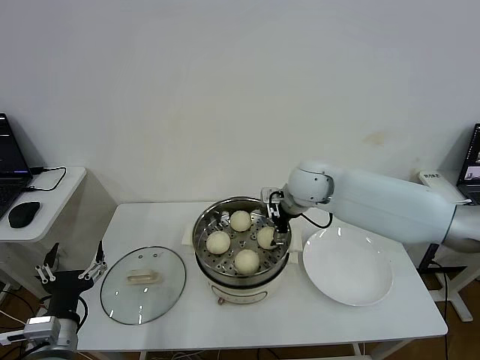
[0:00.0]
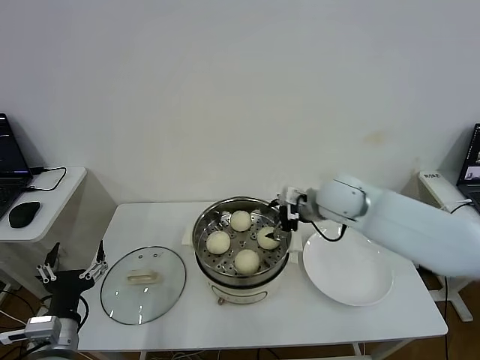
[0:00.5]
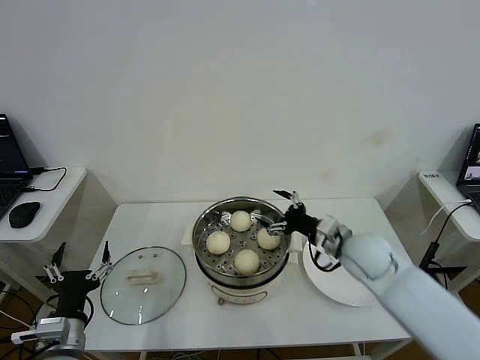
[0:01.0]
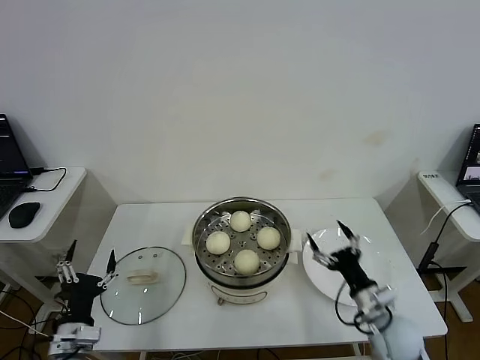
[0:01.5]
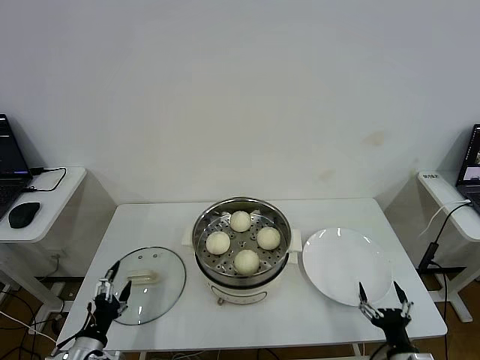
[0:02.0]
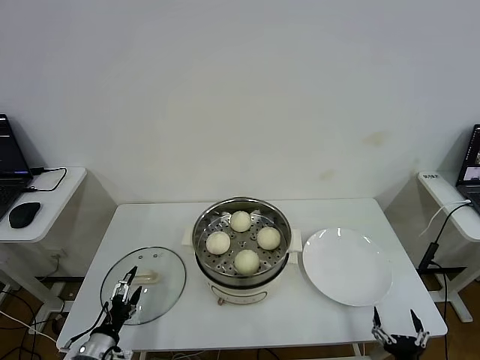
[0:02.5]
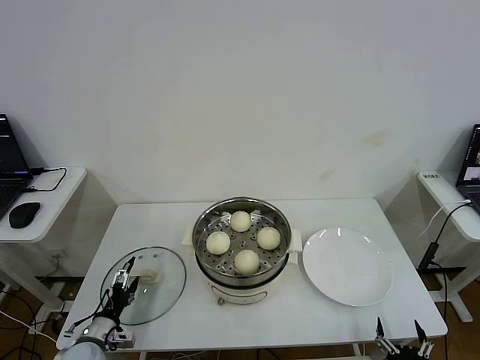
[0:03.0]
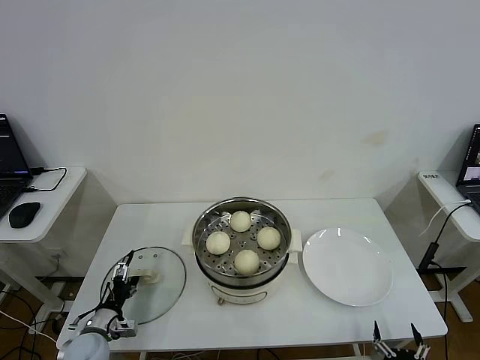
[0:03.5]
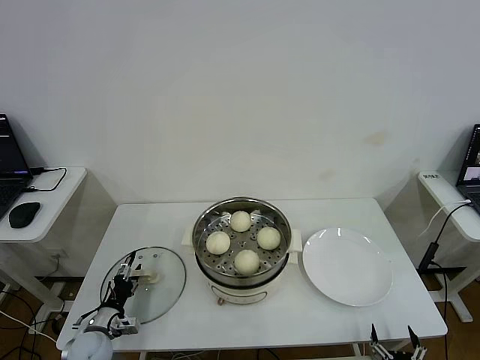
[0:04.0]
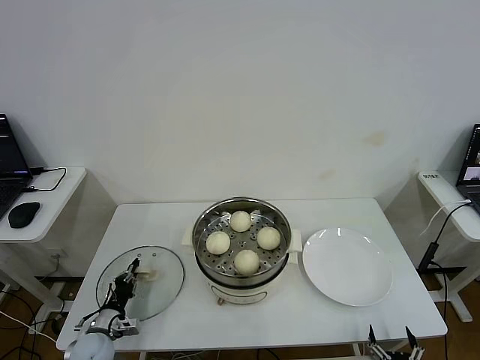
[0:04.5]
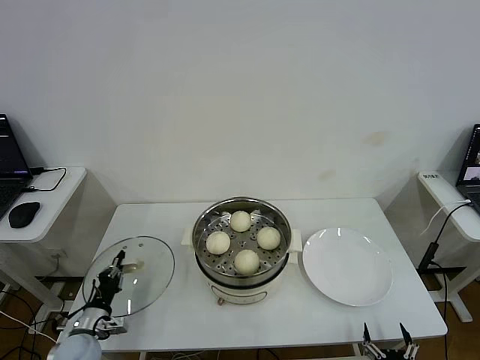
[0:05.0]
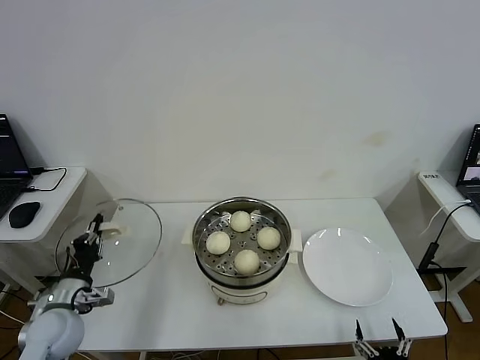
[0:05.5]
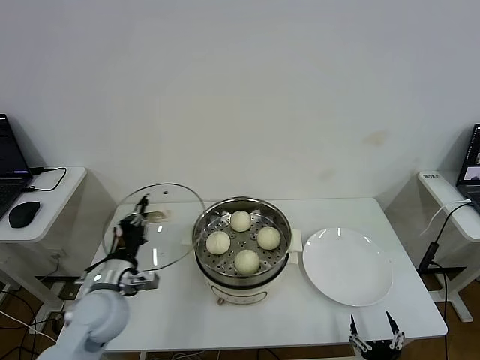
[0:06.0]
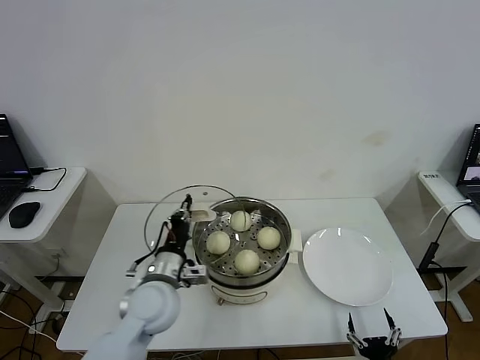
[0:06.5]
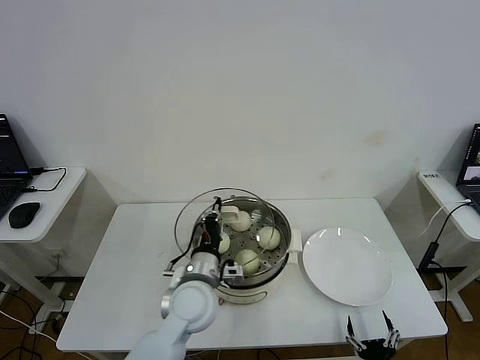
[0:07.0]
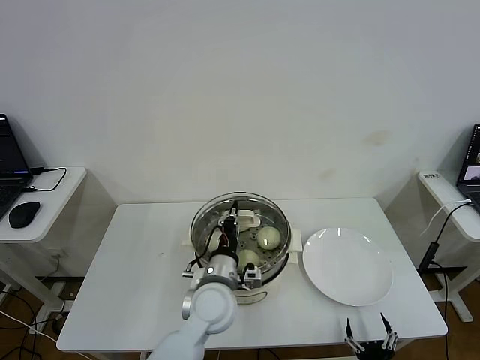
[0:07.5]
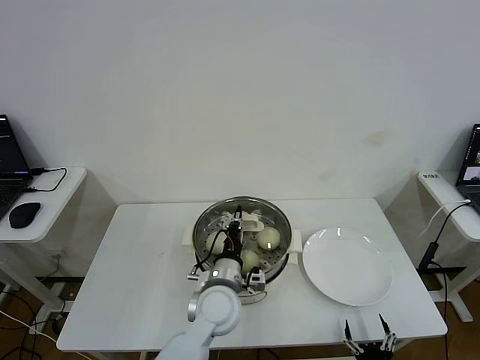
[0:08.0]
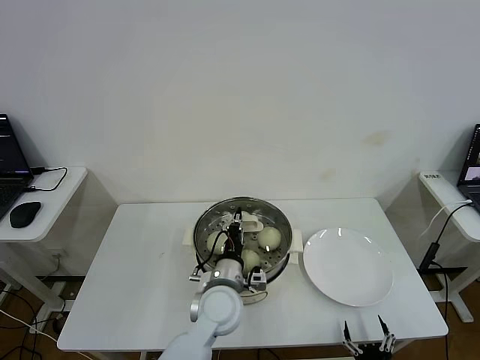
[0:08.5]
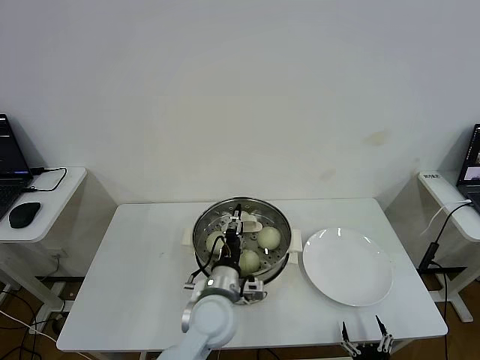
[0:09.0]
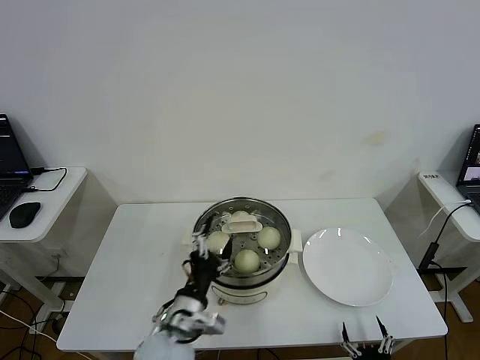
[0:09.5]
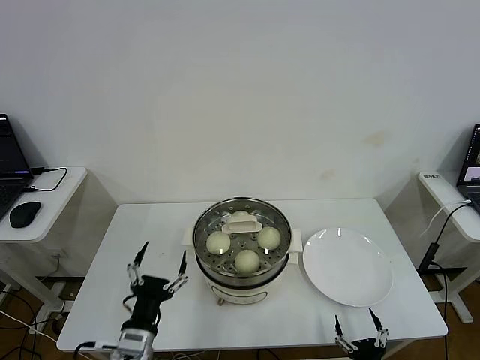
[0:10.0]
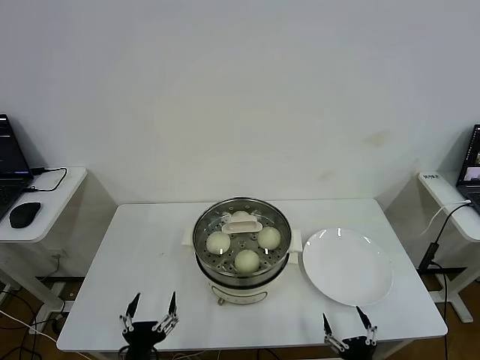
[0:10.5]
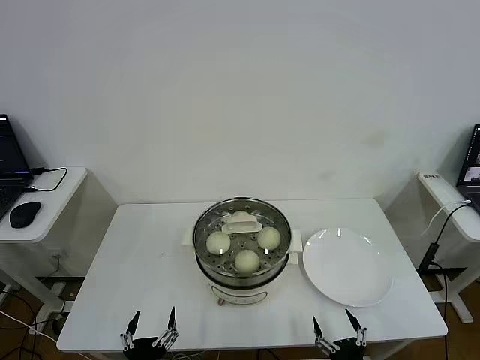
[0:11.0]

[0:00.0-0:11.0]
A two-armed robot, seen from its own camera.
Step, 0:00.5 to 0:04.5: Grasp the pot lid with left gripper.
Step, 0:05.0 to 0:08.5: Place the pot lid on the steamer with left gripper.
0:00.0 to 0:02.0: The left gripper travels downward by roughly 10 cm, while the right gripper is displaced backward, downward and to the right by about 50 cm.
0:02.0 to 0:03.5: The left gripper heads forward and downward, covering some 10 cm. Meanwhile the right gripper heads backward, covering roughly 5 cm.
0:03.5 to 0:05.5: The left gripper is displaced upward by approximately 15 cm, and closes its fingers.
0:05.5 to 0:07.5: The left gripper moves to the right, some 30 cm.
0:07.5 to 0:09.0: The left gripper opens up.
0:09.0 to 0:11.0: The right gripper travels upward by roughly 5 cm; the left gripper is displaced backward and to the left by roughly 25 cm, and opens its fingers.

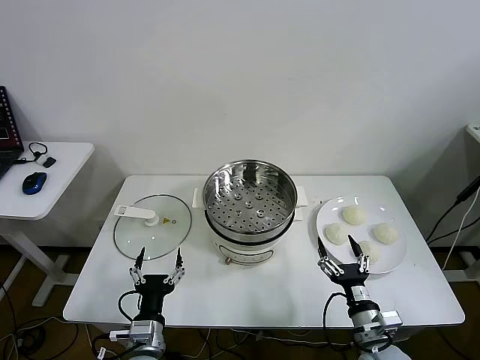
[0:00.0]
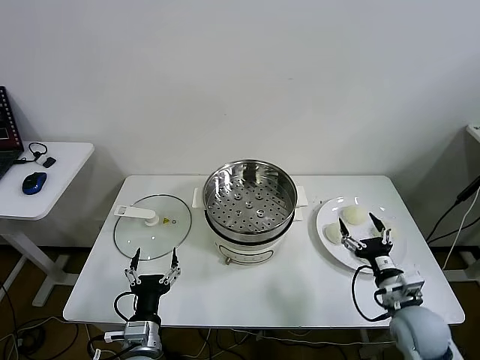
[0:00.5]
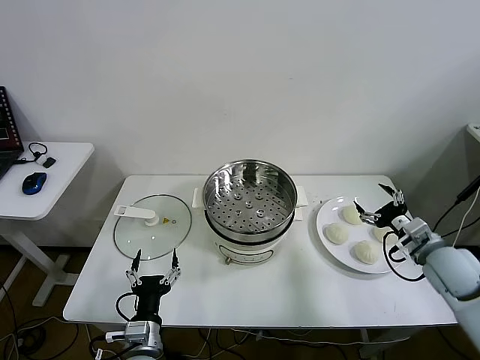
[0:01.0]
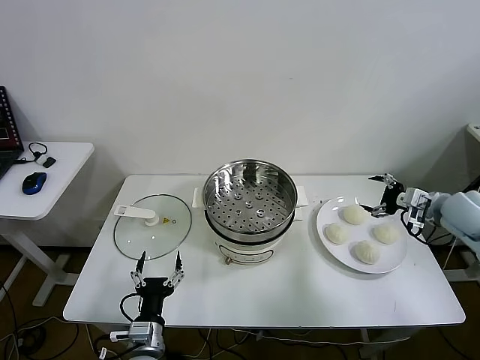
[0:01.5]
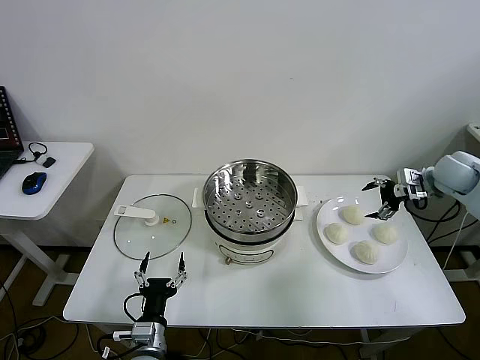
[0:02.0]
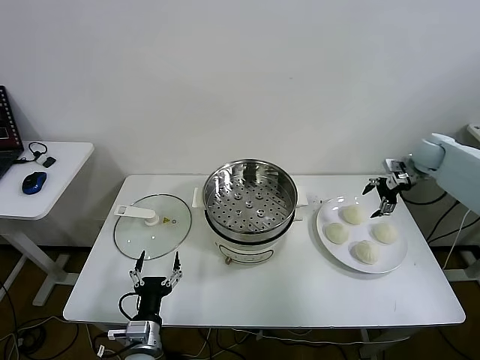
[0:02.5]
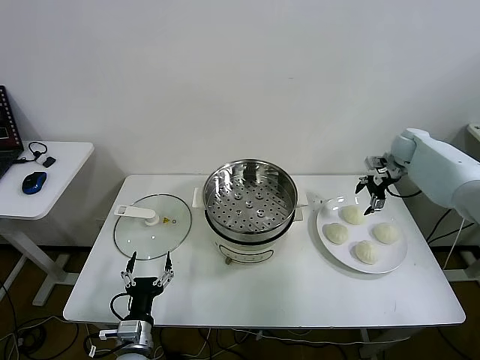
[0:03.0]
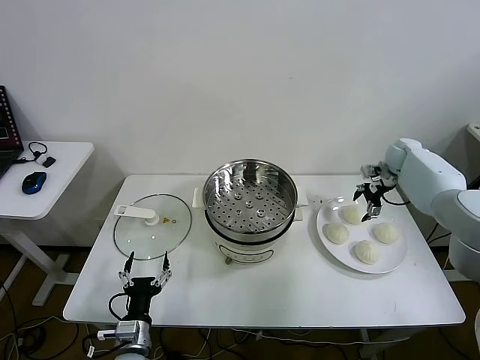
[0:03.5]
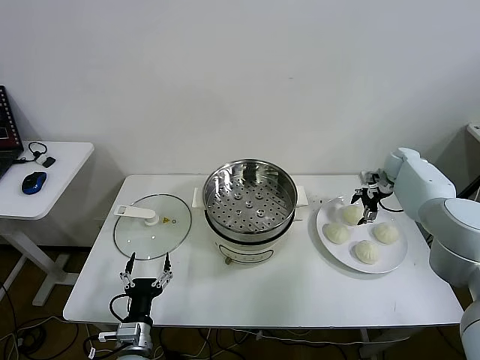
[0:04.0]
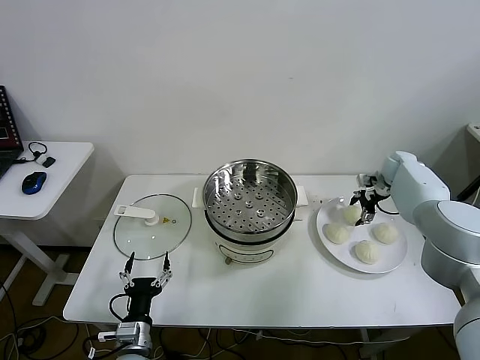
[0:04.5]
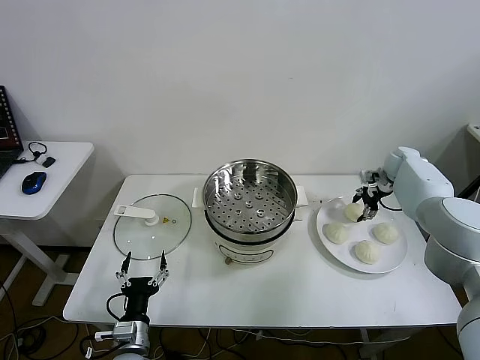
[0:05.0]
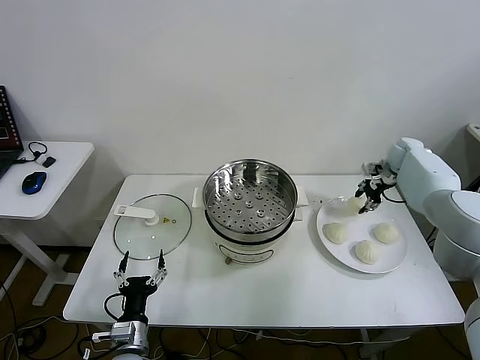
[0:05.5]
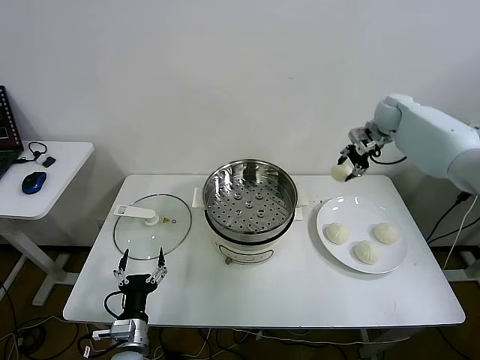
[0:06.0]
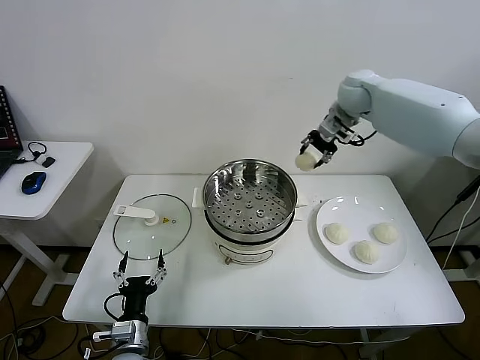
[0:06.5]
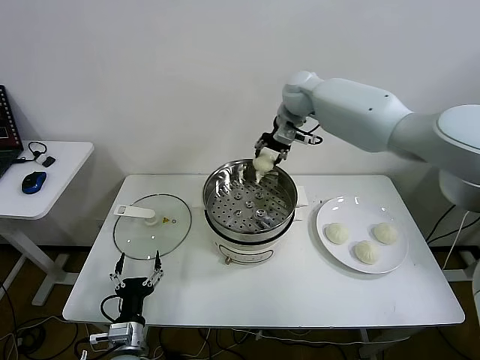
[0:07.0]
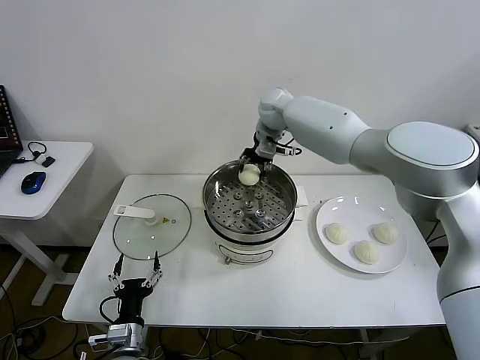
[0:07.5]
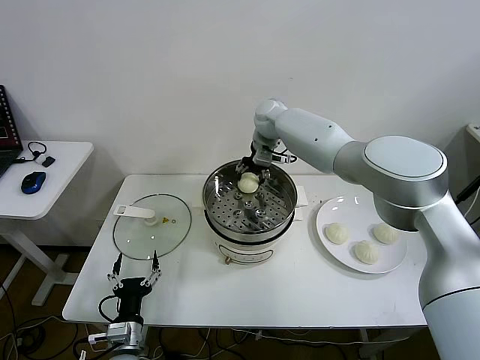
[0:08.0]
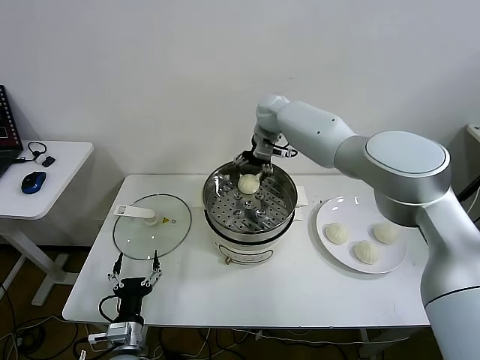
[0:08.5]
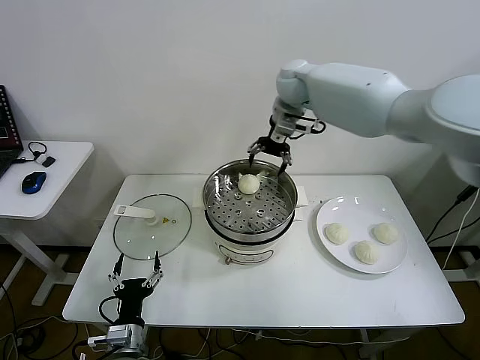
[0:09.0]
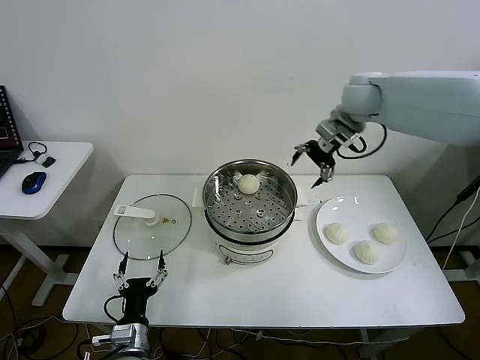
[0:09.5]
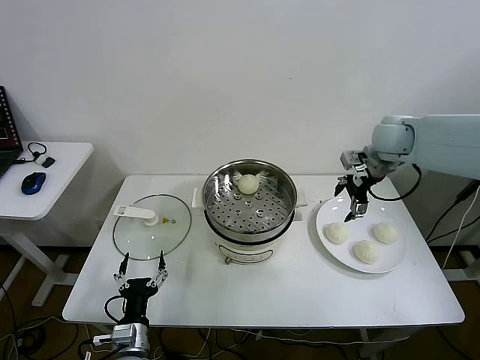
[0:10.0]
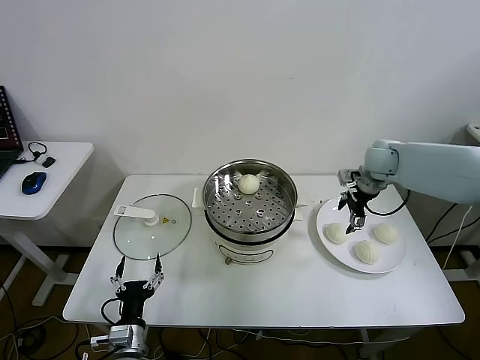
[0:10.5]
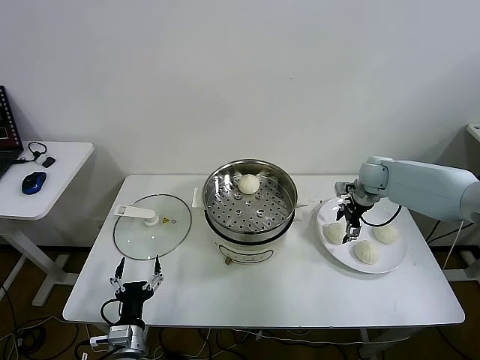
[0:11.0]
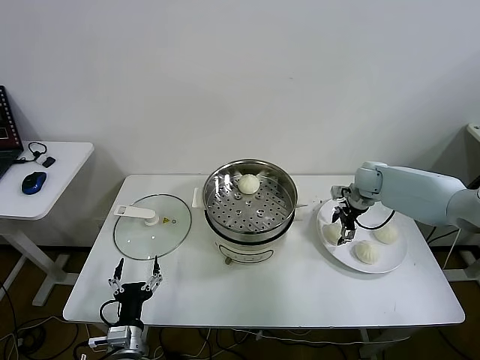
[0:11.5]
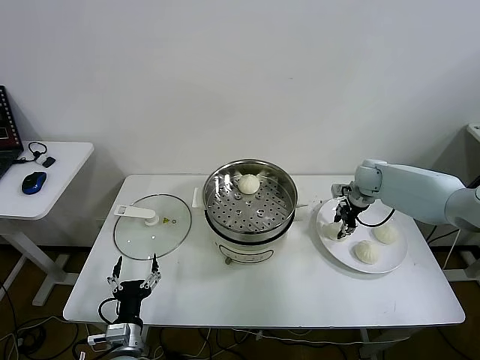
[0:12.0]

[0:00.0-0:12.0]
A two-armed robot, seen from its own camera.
Step, 0:00.0 to 0:04.5: Grasp the baozi in the plate with right gripper.
Step, 0:05.0 to 0:08.5: Place the baozi on the steamer with right gripper.
0:02.0 to 0:04.0: The right gripper goes about 15 cm forward and downward.
0:04.0 to 0:06.0: The right gripper goes roughly 20 cm upward and to the left, and closes.
0:06.0 to 0:08.0: The right gripper is displaced to the left by some 30 cm, and opens.
0:08.0 to 0:10.0: The right gripper moves to the right and backward, about 30 cm.
0:10.0 to 0:12.0: The right gripper is displaced downward by approximately 15 cm, and closes its fingers.

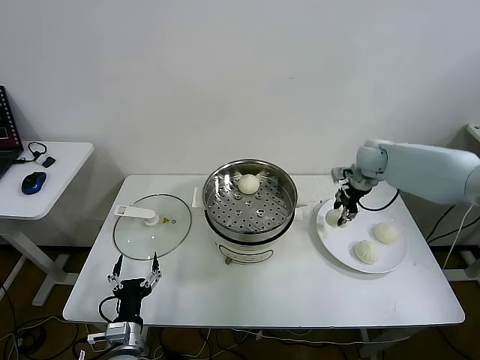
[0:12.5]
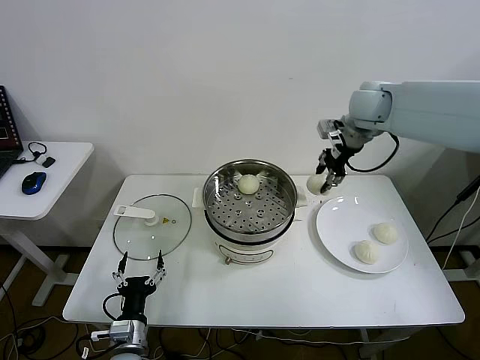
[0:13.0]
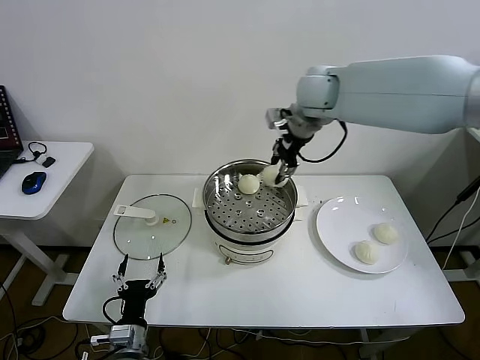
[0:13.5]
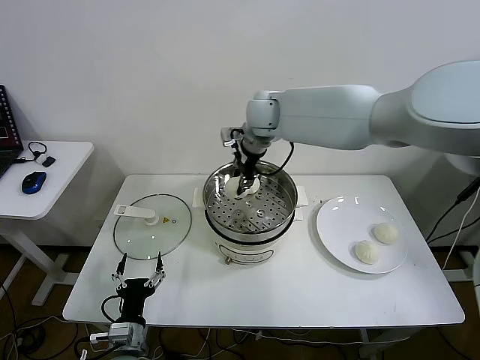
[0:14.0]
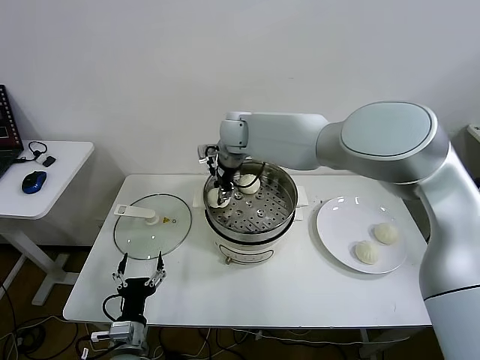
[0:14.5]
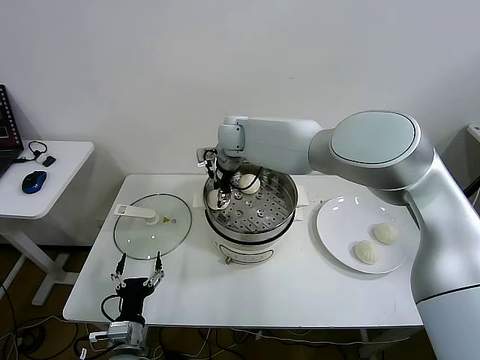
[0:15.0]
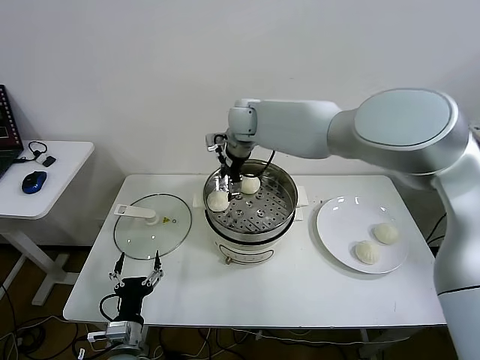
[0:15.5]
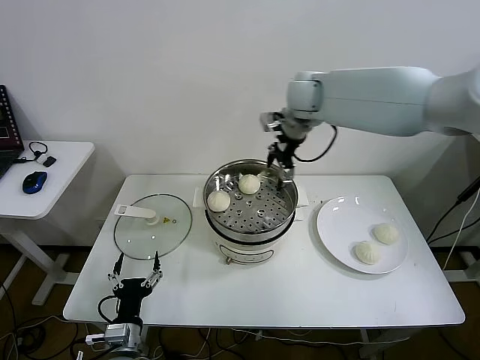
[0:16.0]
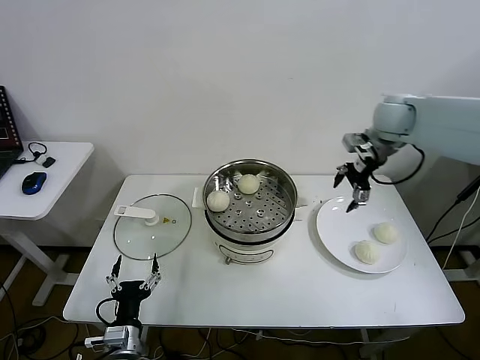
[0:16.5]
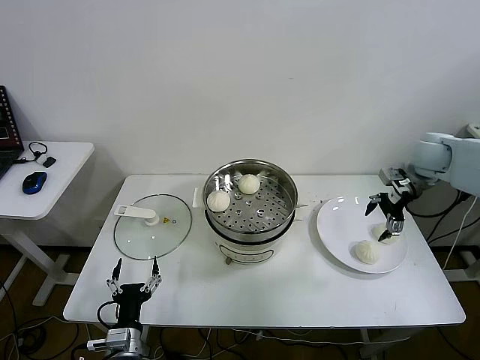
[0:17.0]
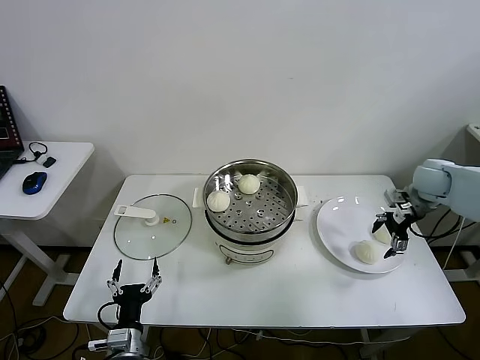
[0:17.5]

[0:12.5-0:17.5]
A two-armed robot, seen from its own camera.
Step, 0:12.5 to 0:15.0: Place the baozi on the steamer with right gripper.
0:12.5 to 0:15.0: The right gripper is displaced to the left by roughly 35 cm.
0:15.0 to 0:17.5: The right gripper travels to the right by roughly 50 cm, and opens up.
